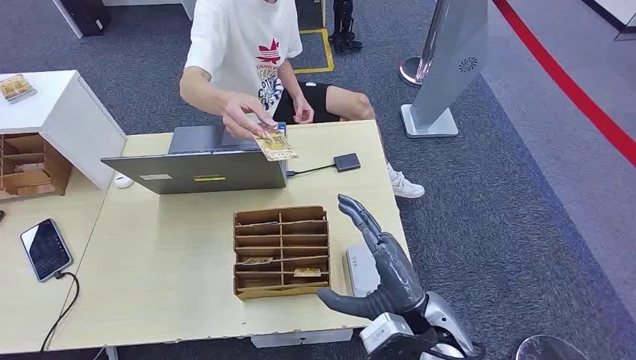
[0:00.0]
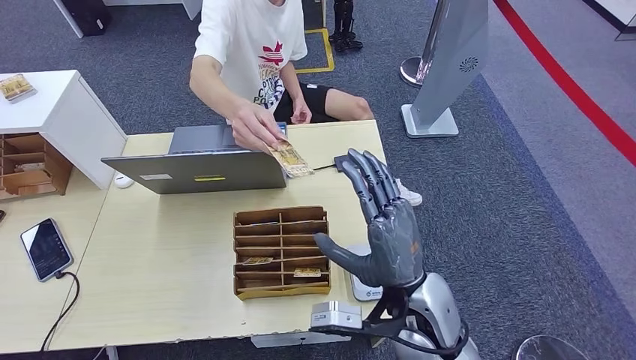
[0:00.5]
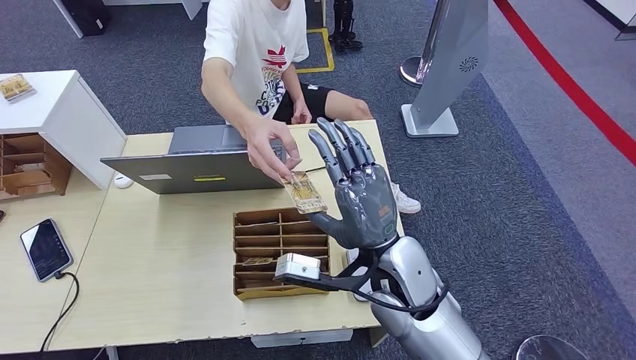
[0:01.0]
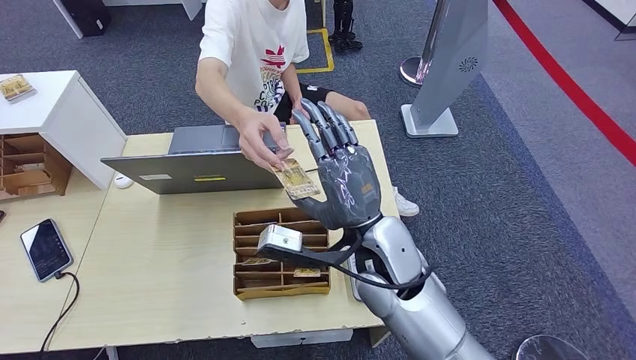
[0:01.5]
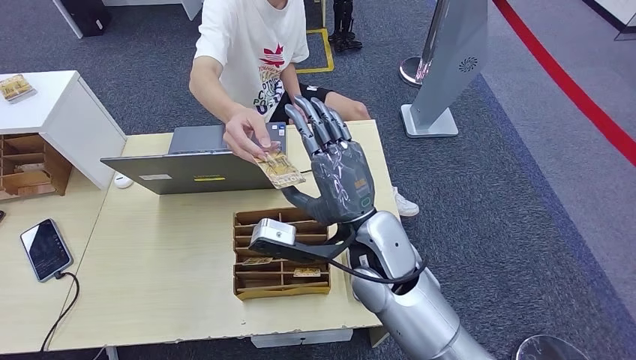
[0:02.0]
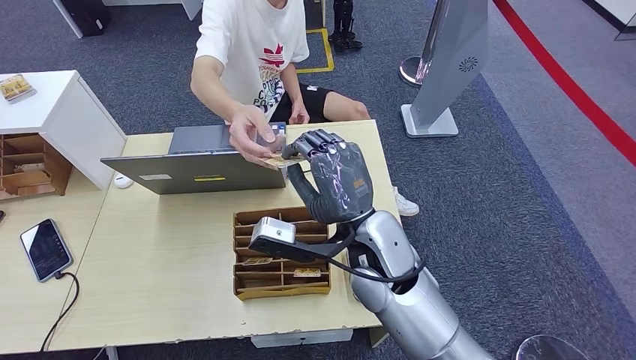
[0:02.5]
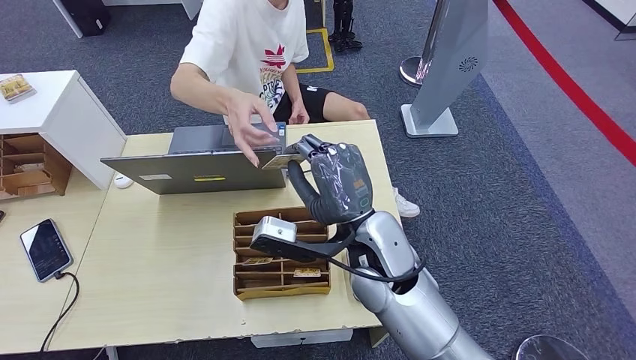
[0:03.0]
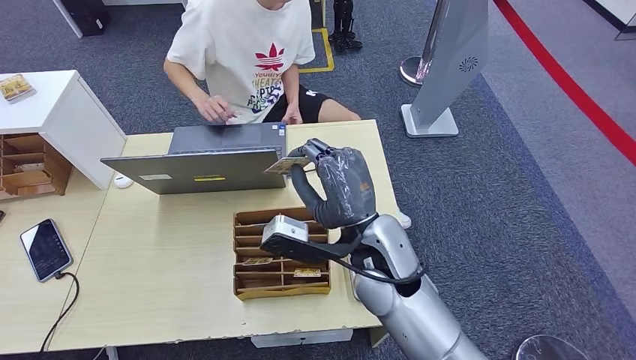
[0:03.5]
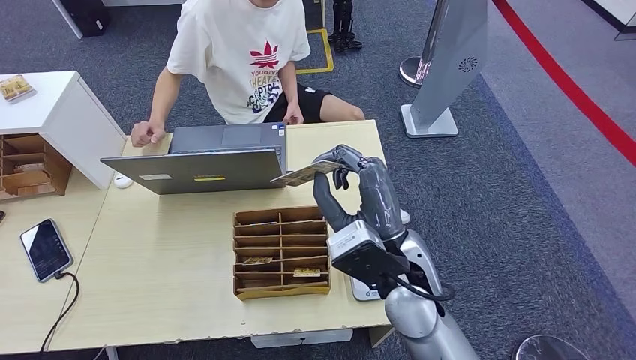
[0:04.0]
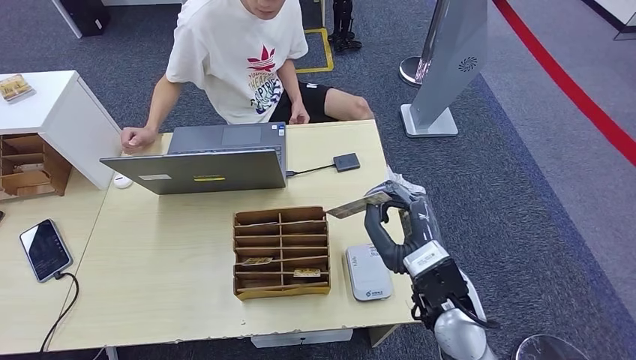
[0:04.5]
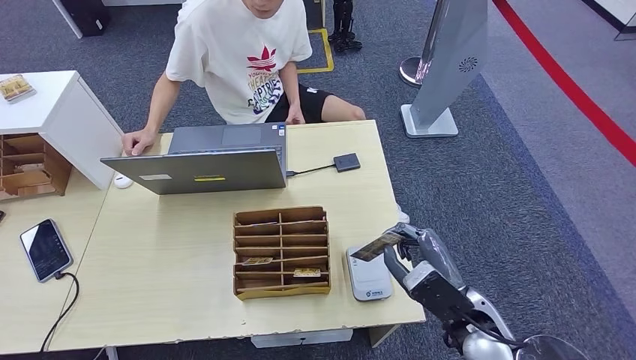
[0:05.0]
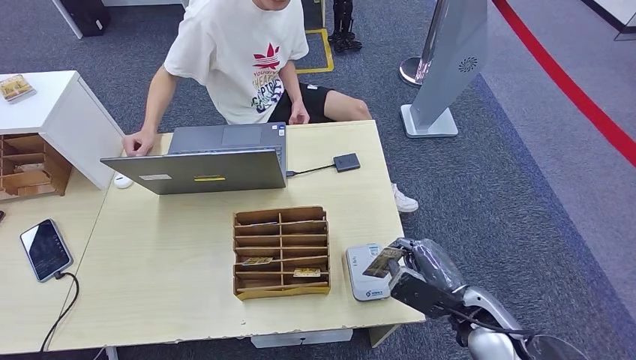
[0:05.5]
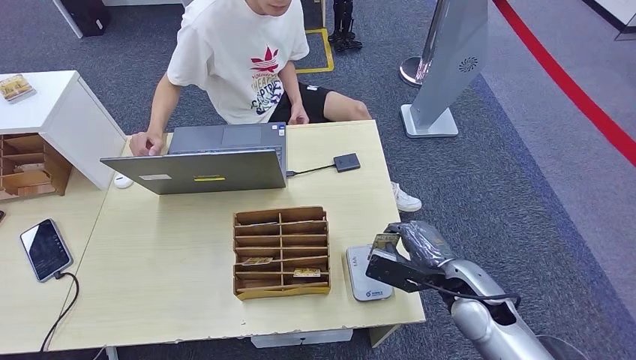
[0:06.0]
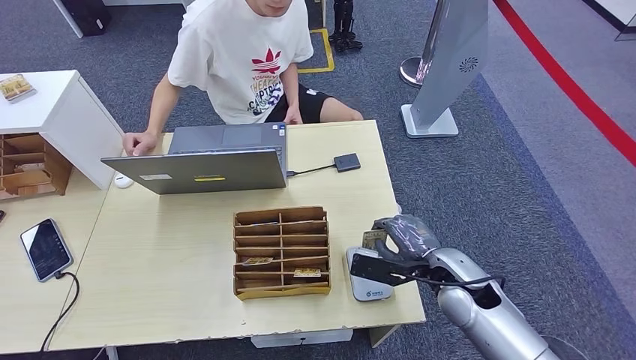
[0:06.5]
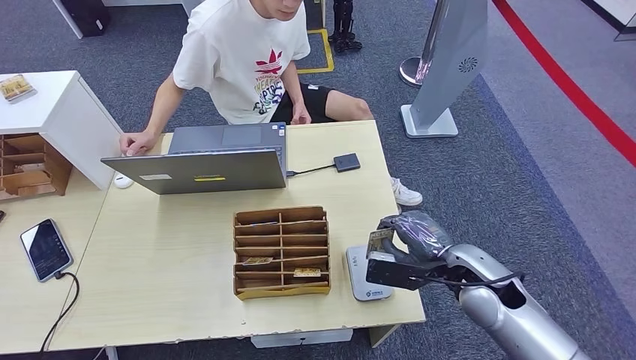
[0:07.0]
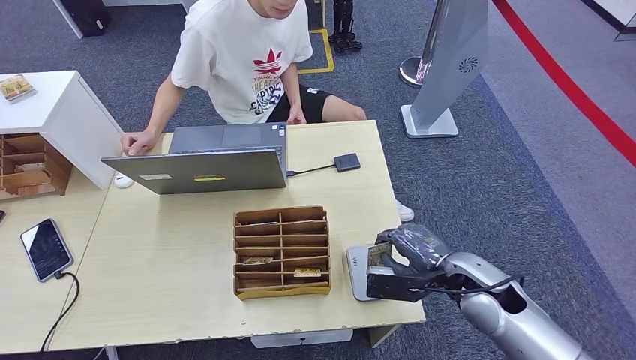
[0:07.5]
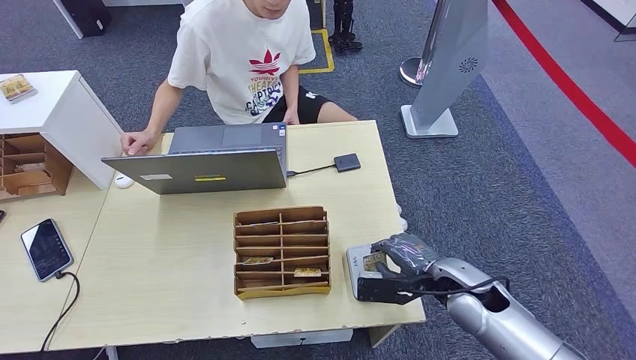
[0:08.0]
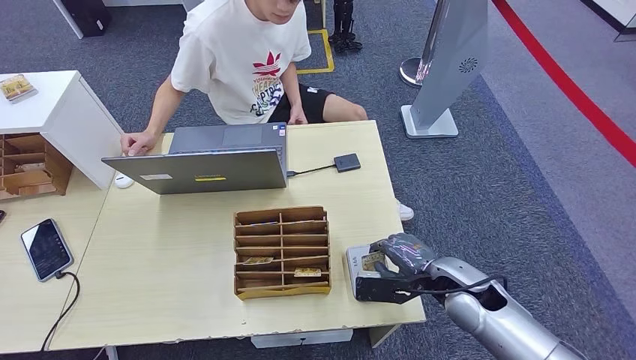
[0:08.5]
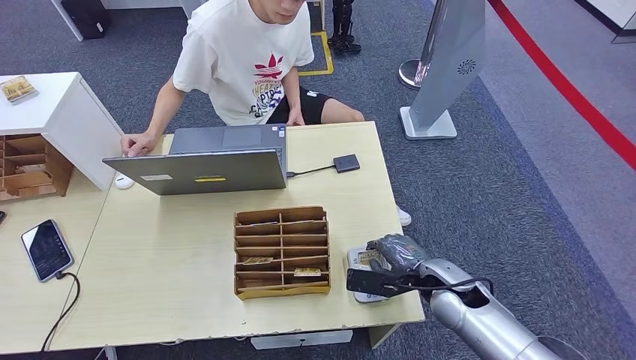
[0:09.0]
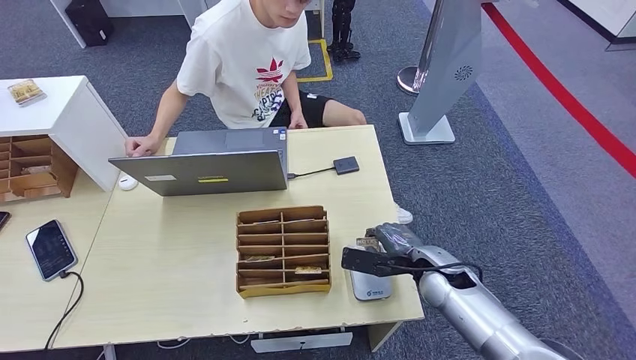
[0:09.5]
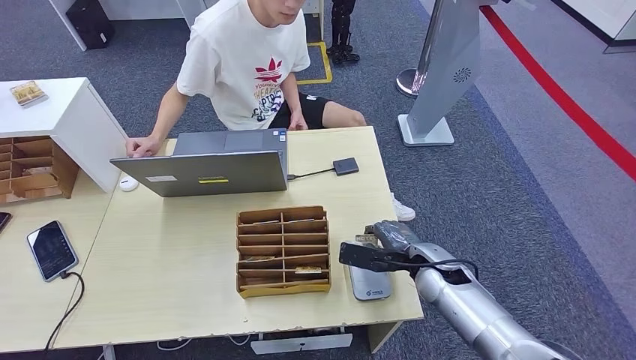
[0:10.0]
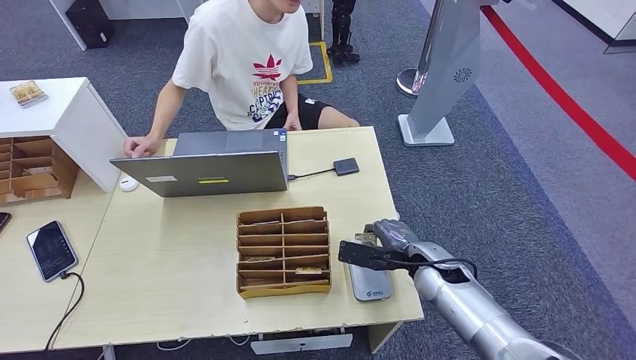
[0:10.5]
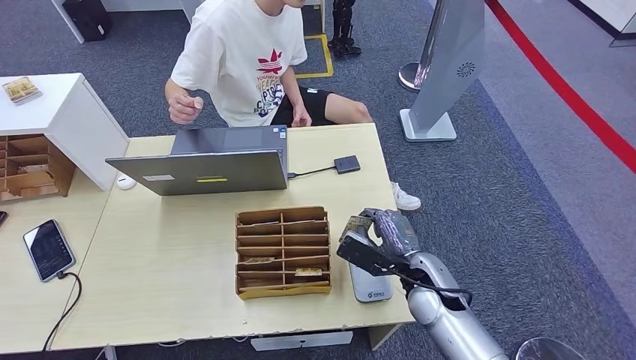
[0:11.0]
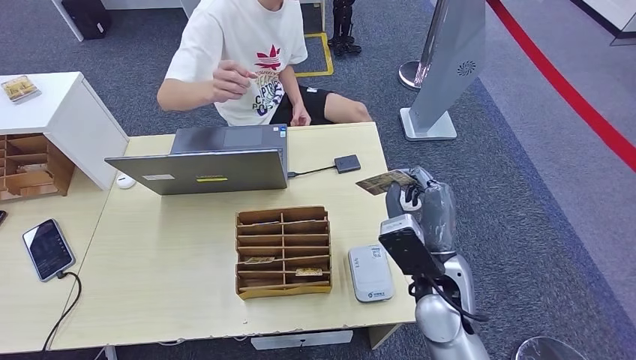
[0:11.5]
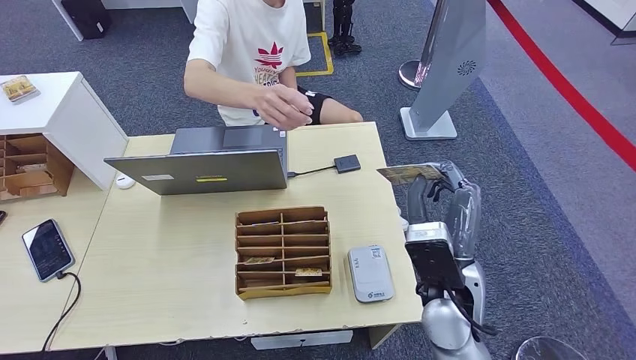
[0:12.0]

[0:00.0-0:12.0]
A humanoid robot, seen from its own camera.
Step, 0:00.0 to 0:02.0: Take the ID card from the person's hand.
Step, 0:02.5 to 0:09.5: Place the ID card on the card reader.
0:04.0 to 0:06.0: The right hand goes roughly 20 cm to the right and downward.
0:06.0 to 0:08.0: The hands make only small movements.

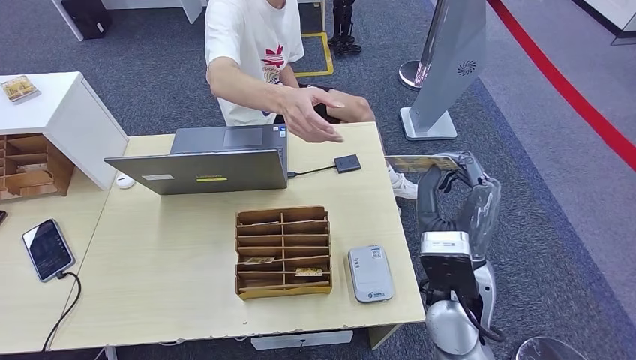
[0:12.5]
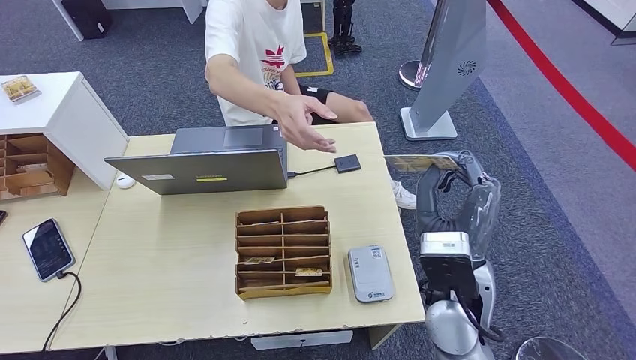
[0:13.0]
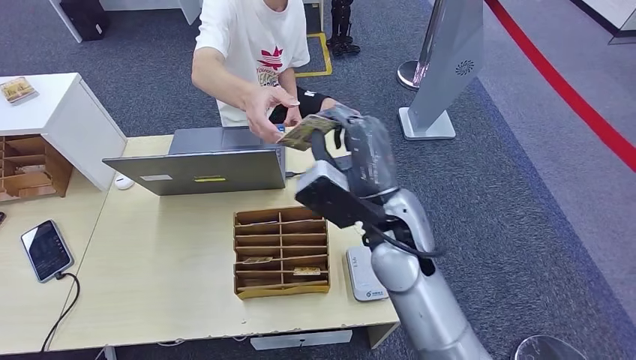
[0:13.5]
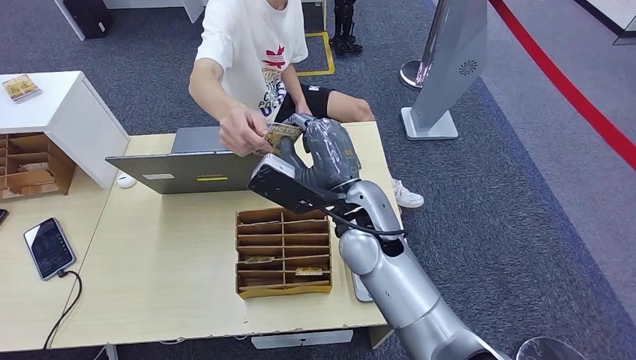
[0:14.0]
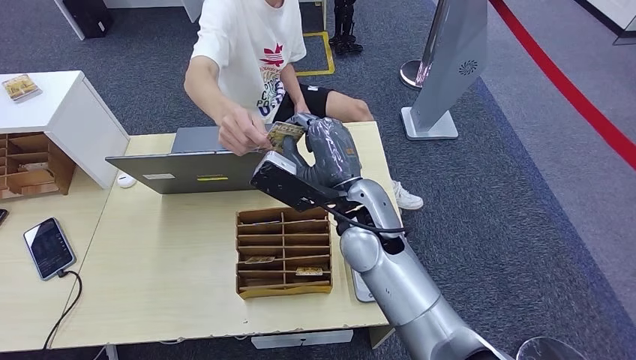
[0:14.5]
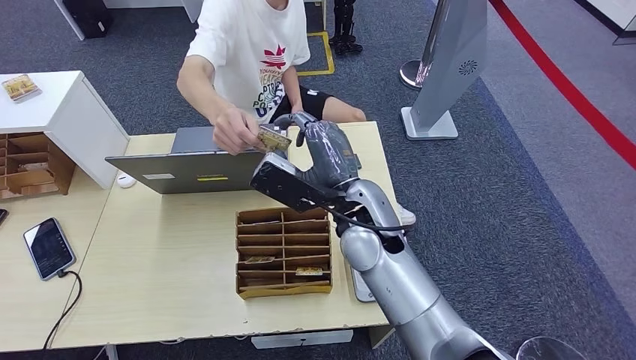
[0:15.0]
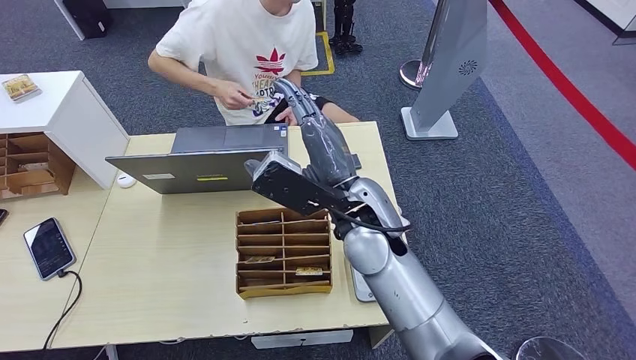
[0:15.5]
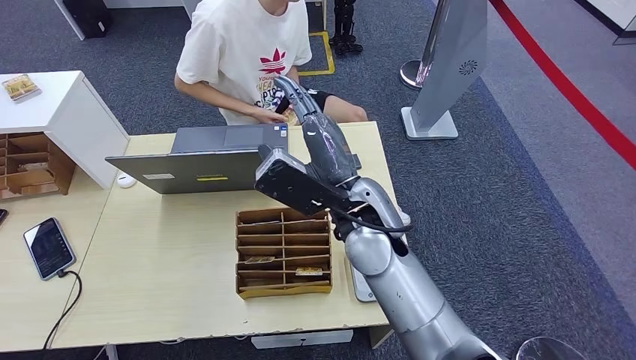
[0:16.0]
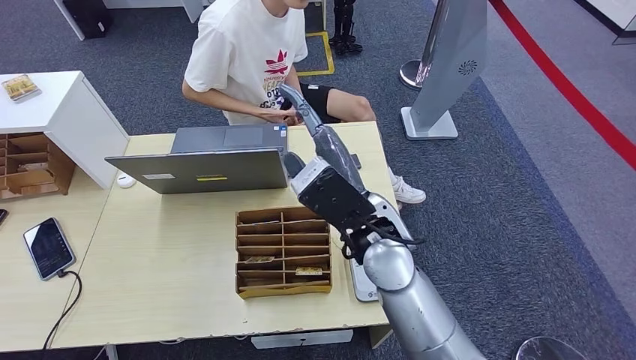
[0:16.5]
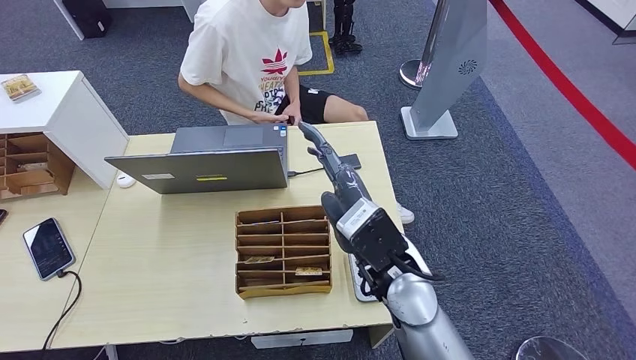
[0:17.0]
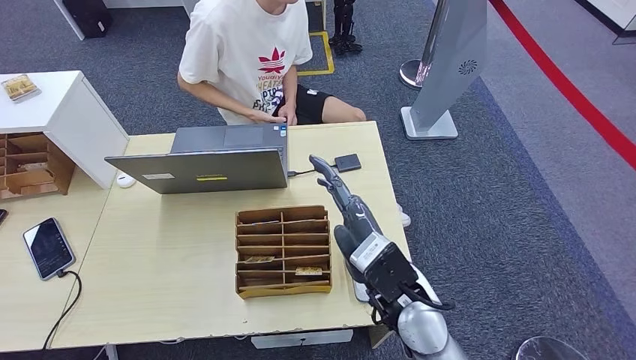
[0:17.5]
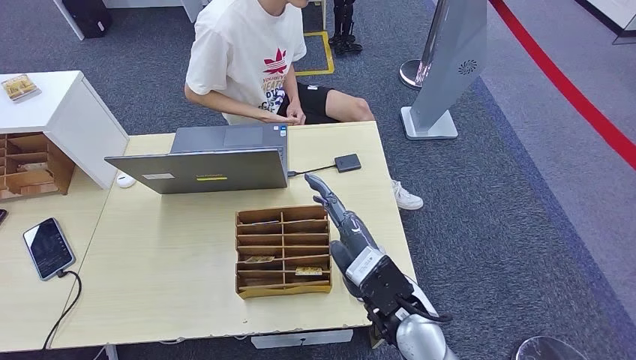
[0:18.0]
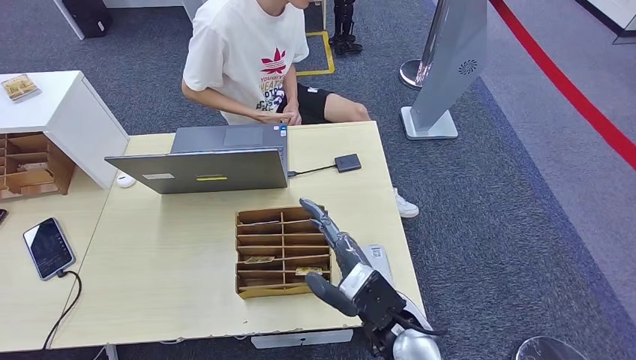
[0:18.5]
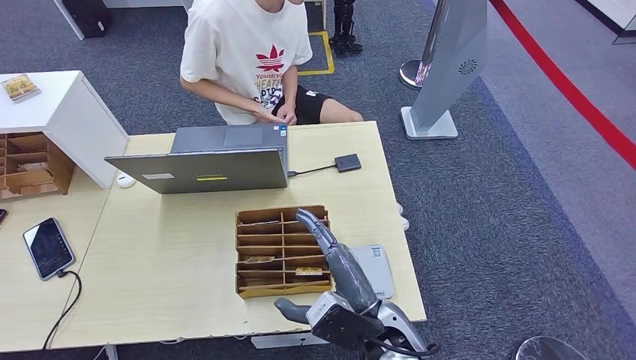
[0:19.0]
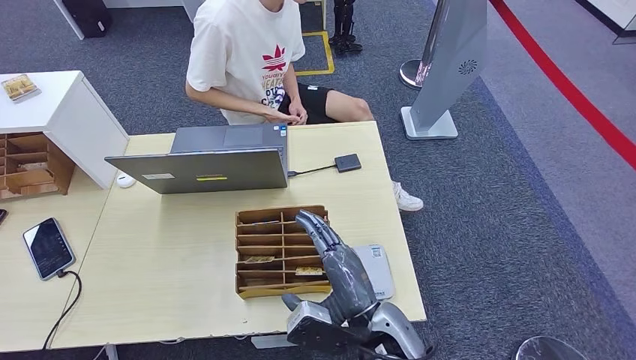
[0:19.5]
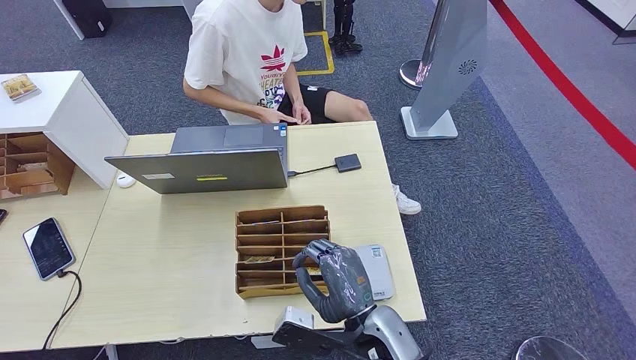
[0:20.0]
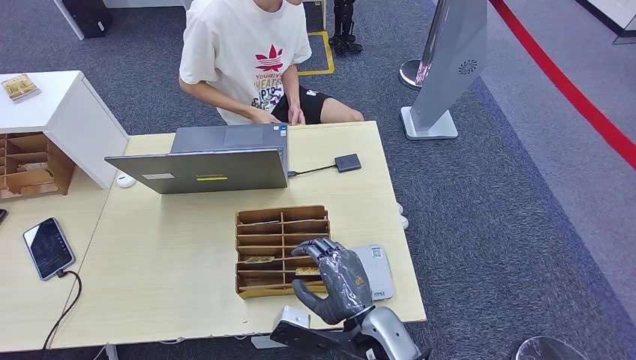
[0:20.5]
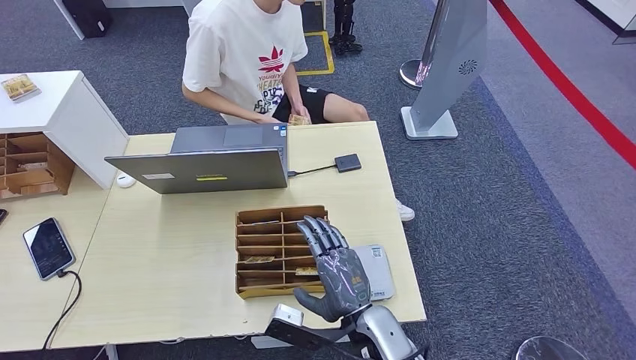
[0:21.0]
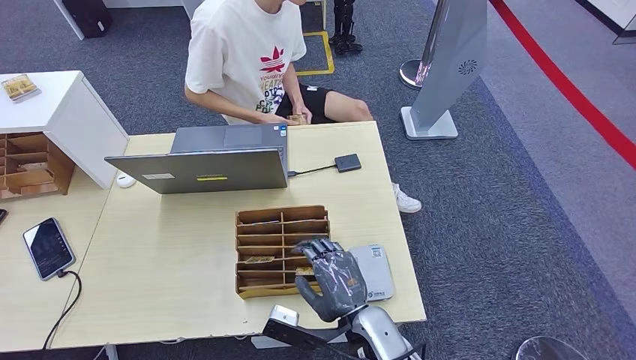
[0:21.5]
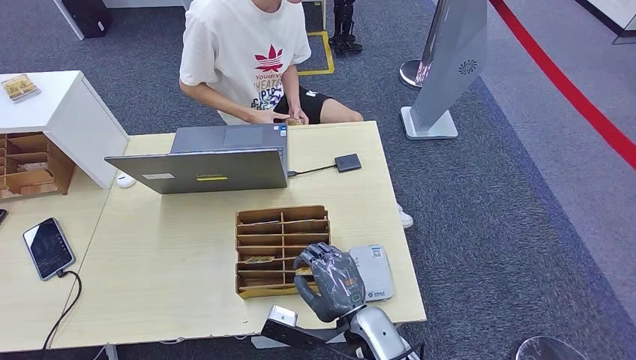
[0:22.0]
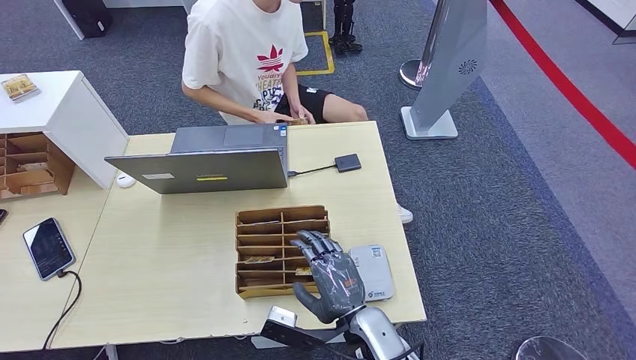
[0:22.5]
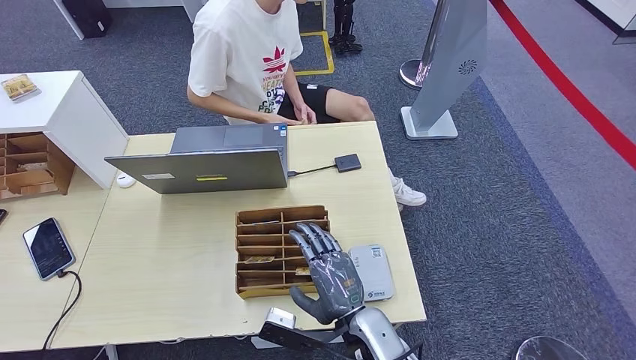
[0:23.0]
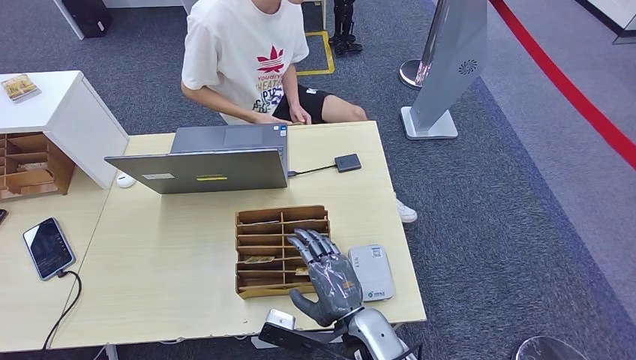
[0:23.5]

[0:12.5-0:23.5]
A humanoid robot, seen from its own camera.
Step, 0:12.5 to 0:15.0: Hand the ID card to the person.
0:12.5 to 0:14.5: The right hand travels to the left and forward by some 15 cm.
0:14.5 to 0:16.0: The hands move only a little.
0:16.0 to 0:18.0: The right hand moves backward and downward, about 15 cm.
0:18.0 to 0:20.0: The right hand heads downward, covering about 5 cm.
0:20.0 to 0:21.5: There are only small adjustments of the hands.
0:21.5 to 0:23.5: Both hands stay about where they are.
